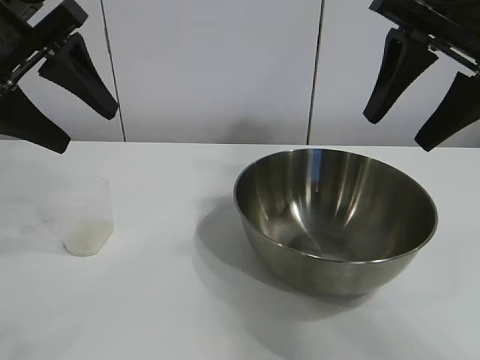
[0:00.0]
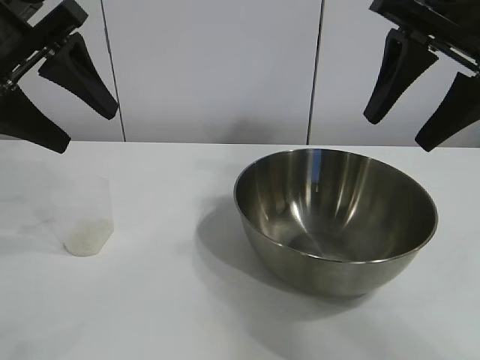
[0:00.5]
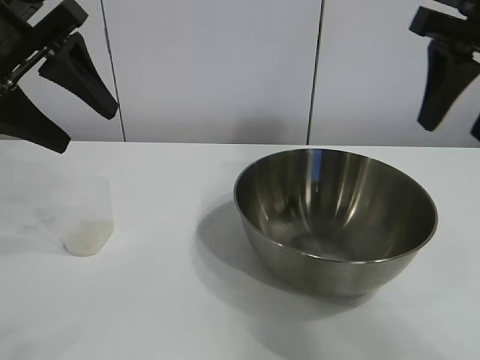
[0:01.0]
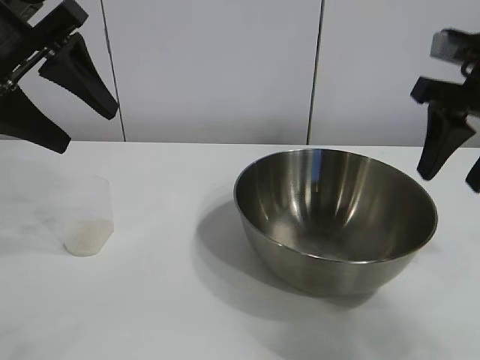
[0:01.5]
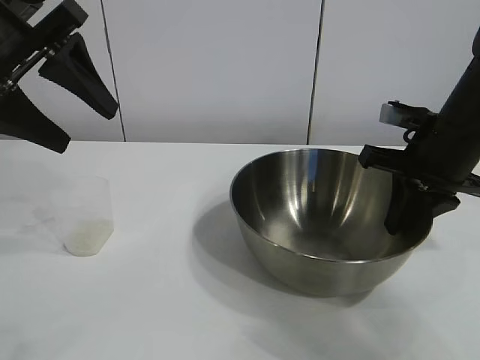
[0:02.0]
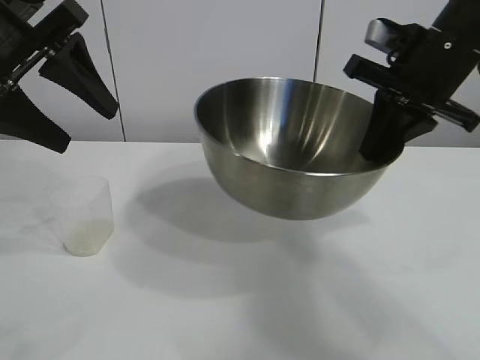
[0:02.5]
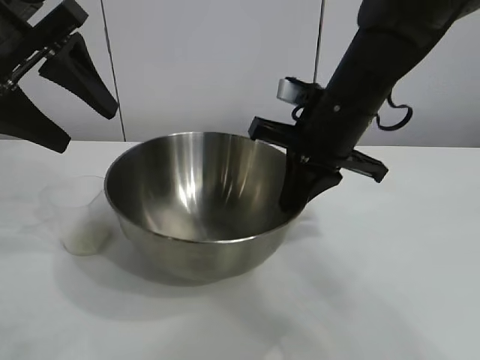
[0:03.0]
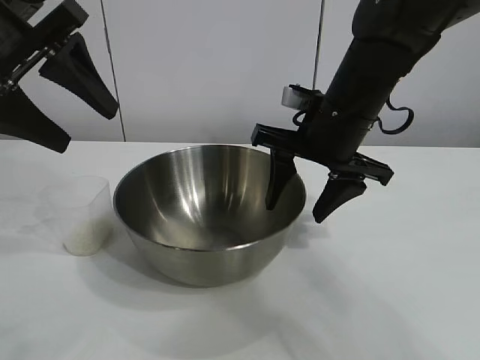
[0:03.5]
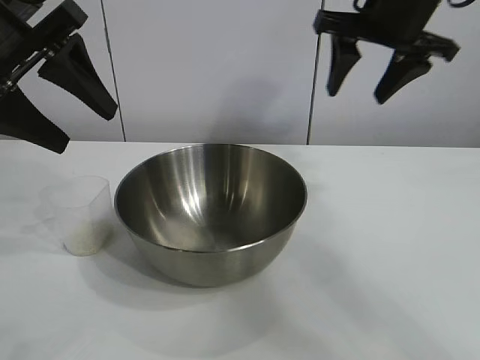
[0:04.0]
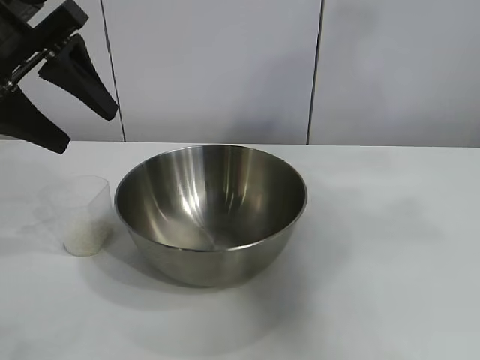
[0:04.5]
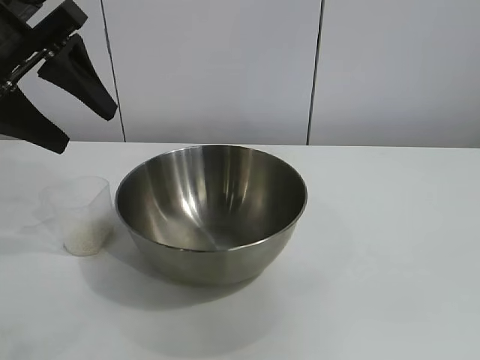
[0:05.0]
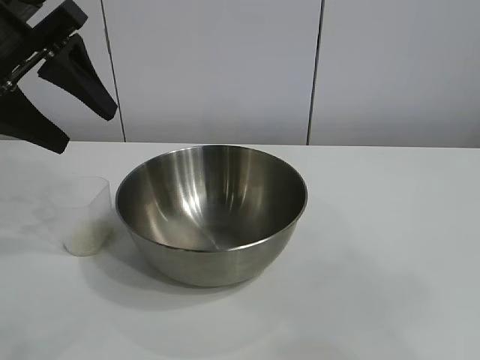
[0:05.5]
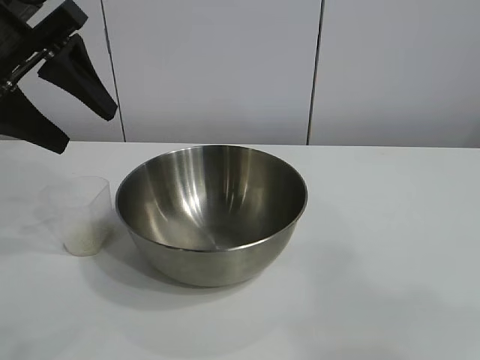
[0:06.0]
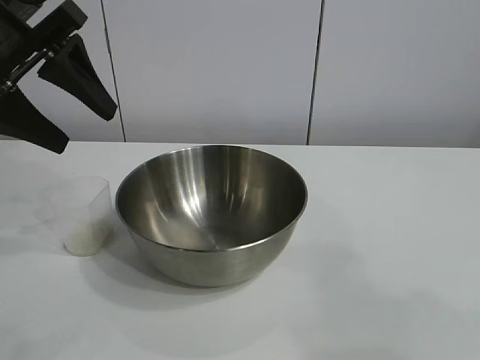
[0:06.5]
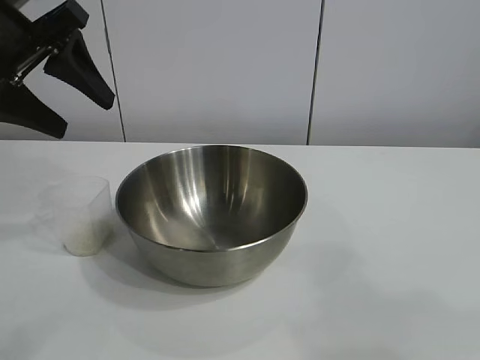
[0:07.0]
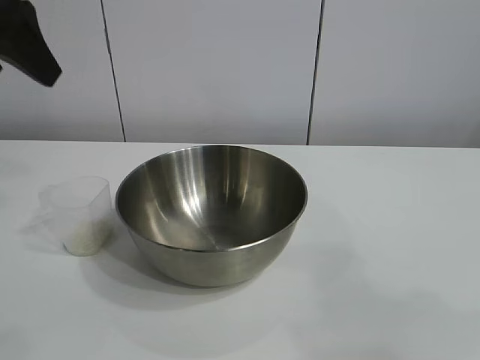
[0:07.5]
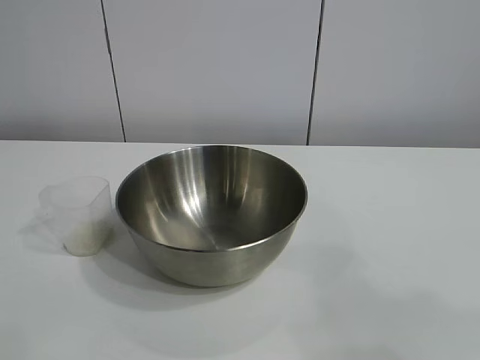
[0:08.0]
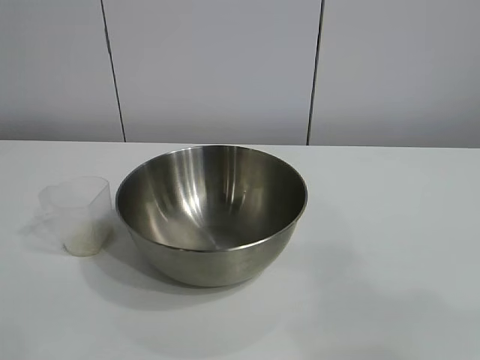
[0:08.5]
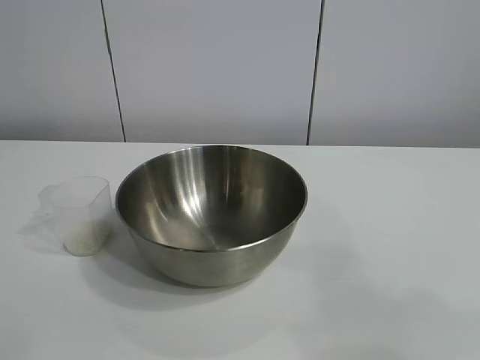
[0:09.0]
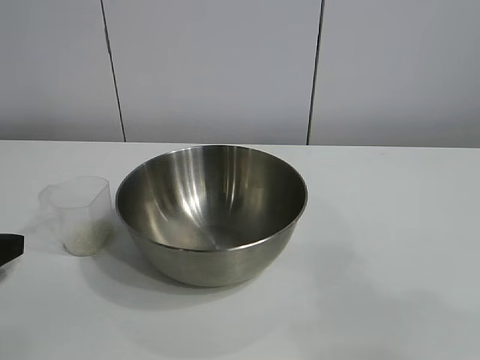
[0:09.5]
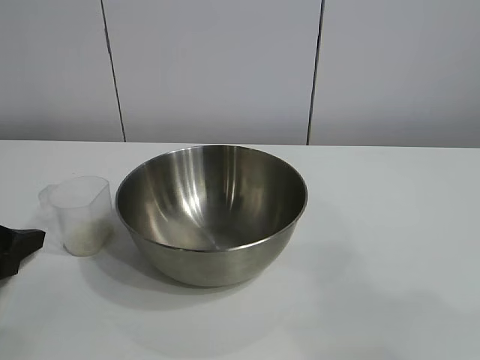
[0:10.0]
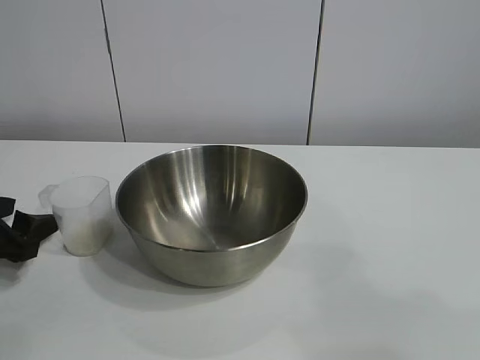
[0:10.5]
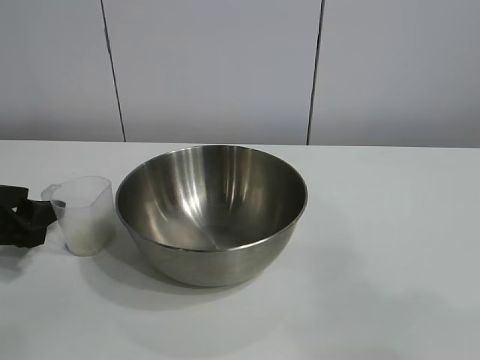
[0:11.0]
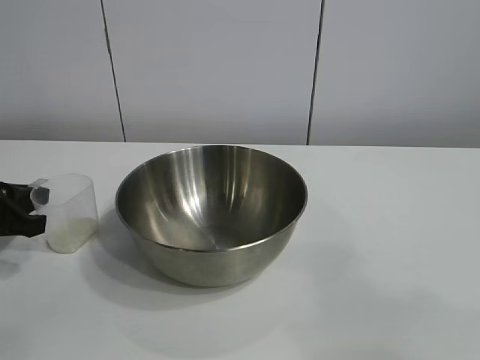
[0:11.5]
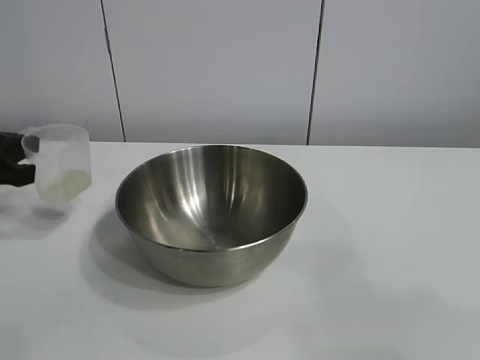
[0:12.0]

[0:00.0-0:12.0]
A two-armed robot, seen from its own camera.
Task of the whole recording: the right gripper grasp the rice container and place it in the center of the table, the left gripper grasp the rice scoop and pour the rice into the rice container.
Step, 0:00.5 to 0:03.5: Move the bowl in the center of view with right gripper.
Step, 0:04.0 to 0:11.5: Grasp the cup with rice in it with left gripper.

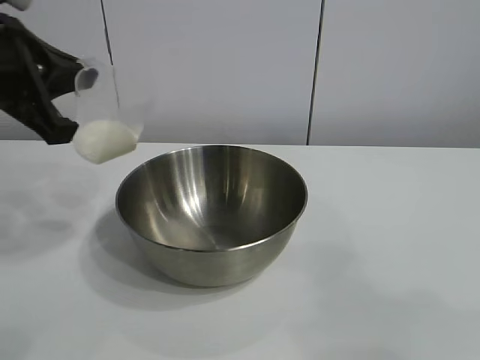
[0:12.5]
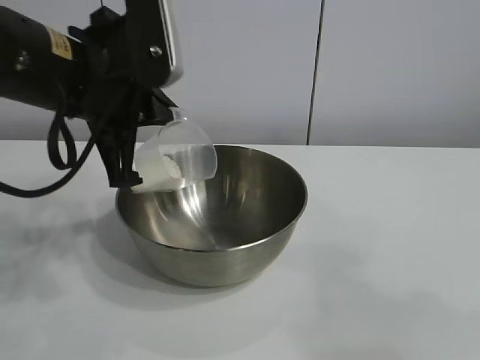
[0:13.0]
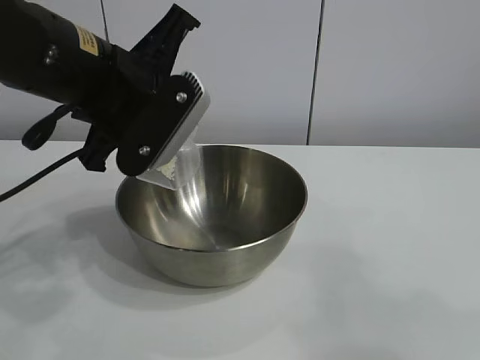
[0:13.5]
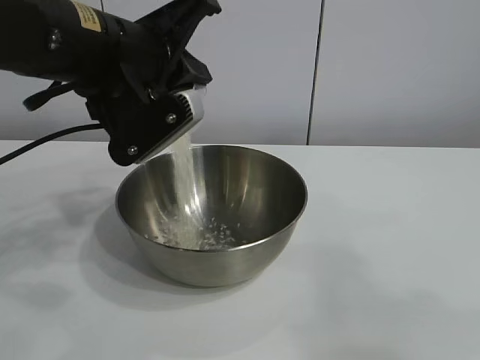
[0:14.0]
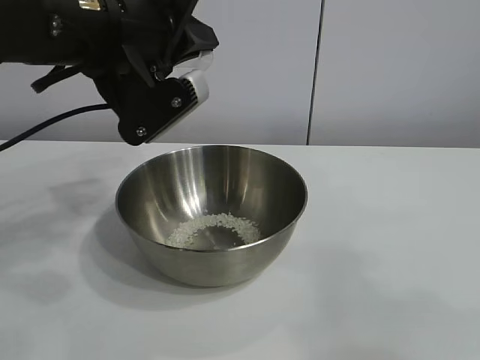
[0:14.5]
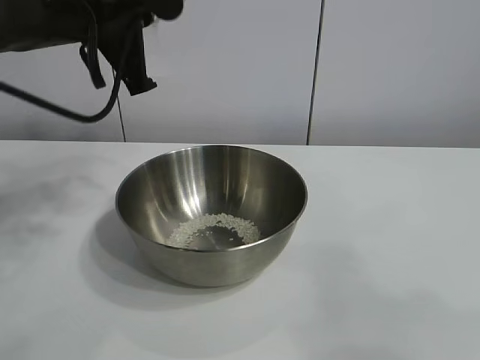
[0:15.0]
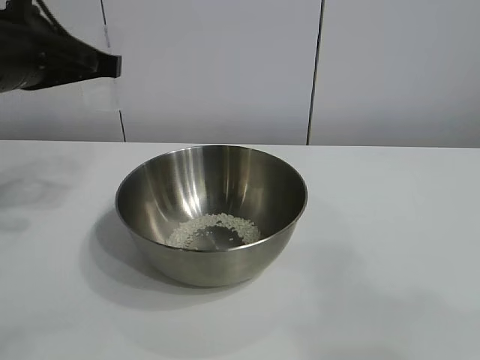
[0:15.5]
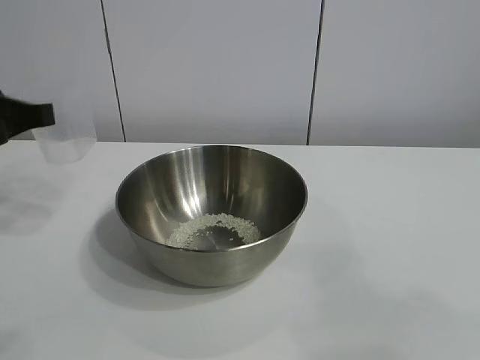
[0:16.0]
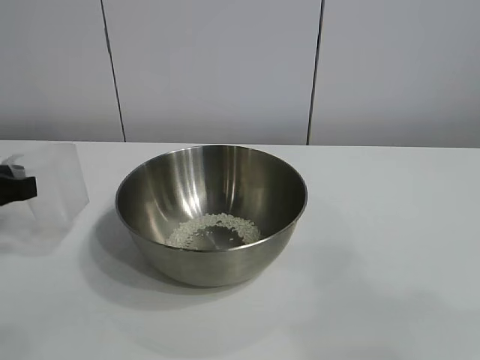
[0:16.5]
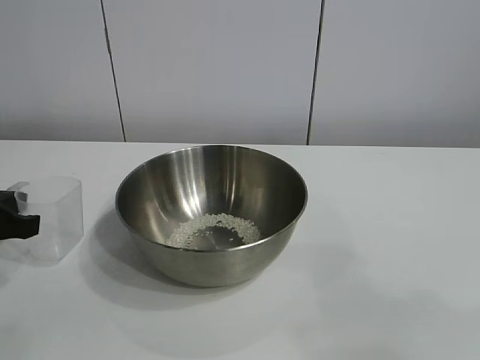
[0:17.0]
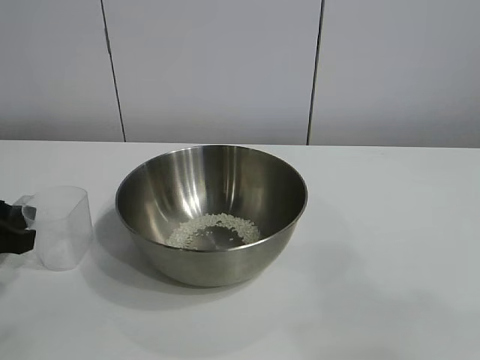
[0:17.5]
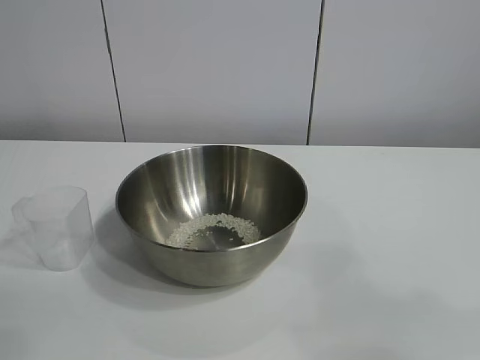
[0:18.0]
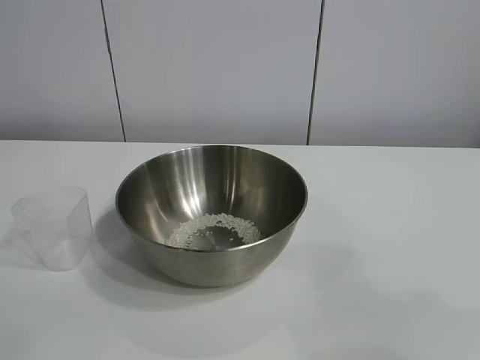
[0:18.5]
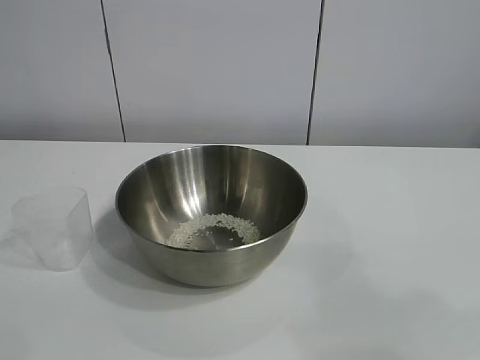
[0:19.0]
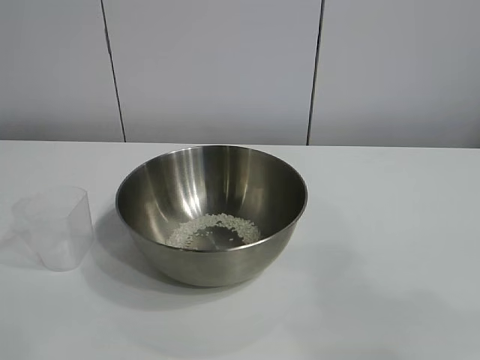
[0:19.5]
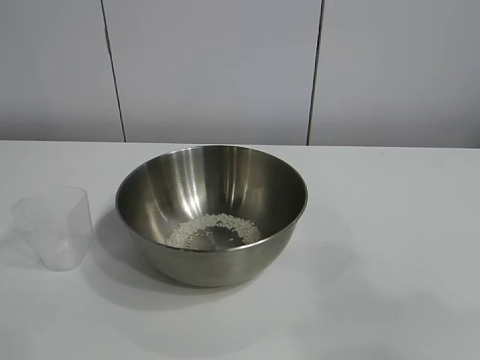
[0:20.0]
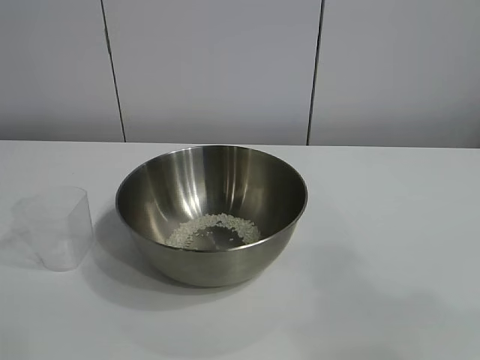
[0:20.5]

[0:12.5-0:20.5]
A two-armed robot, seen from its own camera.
Task of the whole recording: the right gripper grasp the rice container and place it in the center of the table, the left gripper grasp the rice scoop and pour the rice into the rice container.
Step, 0:12.5 to 0:14.0: Pour the rice from the cup into the bowl with the left gripper.
Step, 0:14.5 to 0:17.5: Place the cup on the table with the left gripper.
